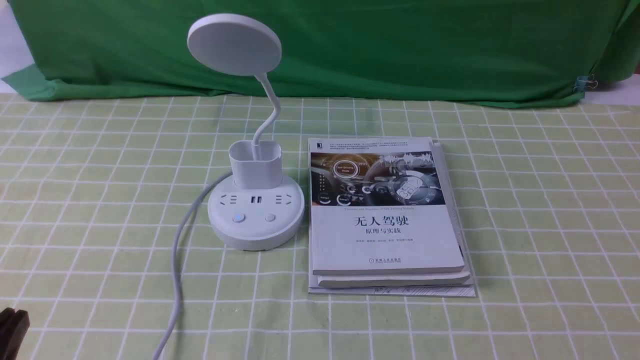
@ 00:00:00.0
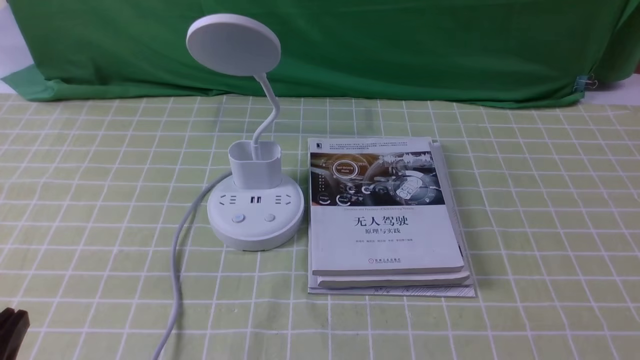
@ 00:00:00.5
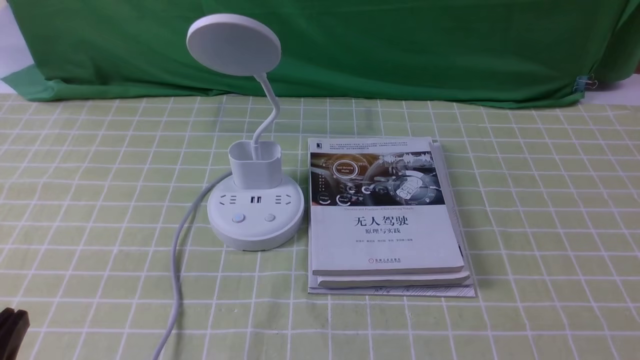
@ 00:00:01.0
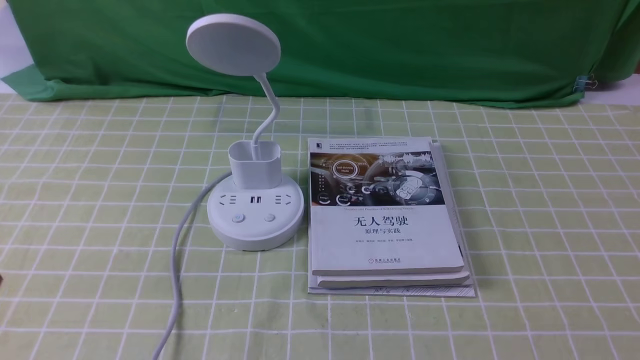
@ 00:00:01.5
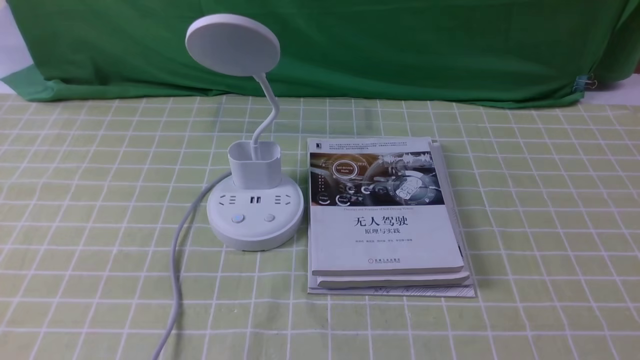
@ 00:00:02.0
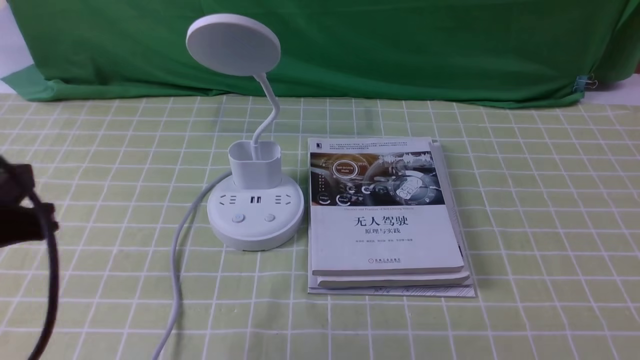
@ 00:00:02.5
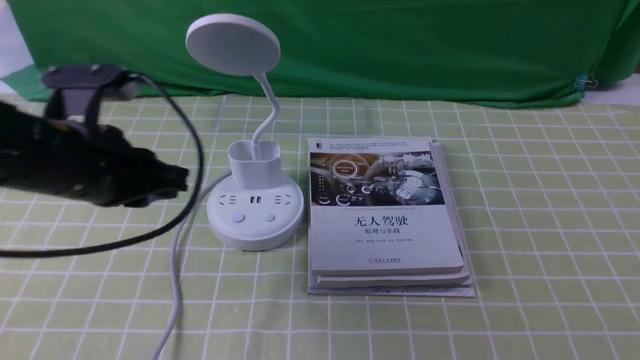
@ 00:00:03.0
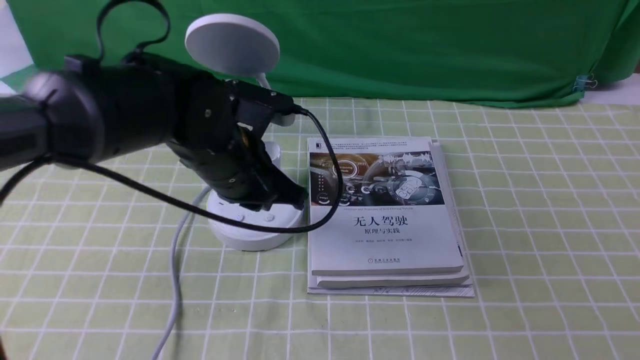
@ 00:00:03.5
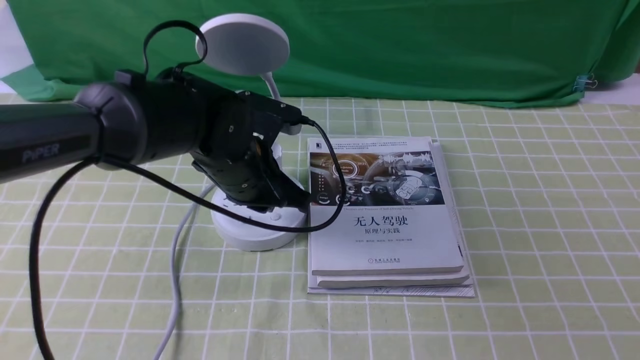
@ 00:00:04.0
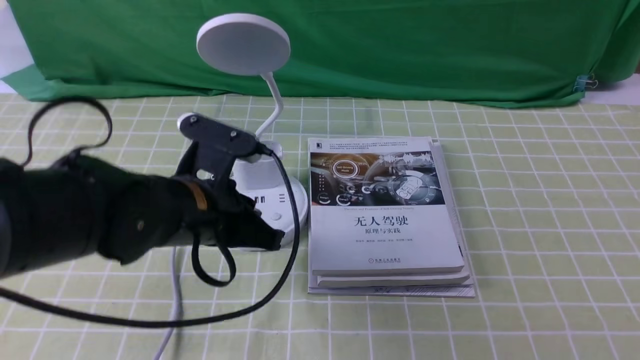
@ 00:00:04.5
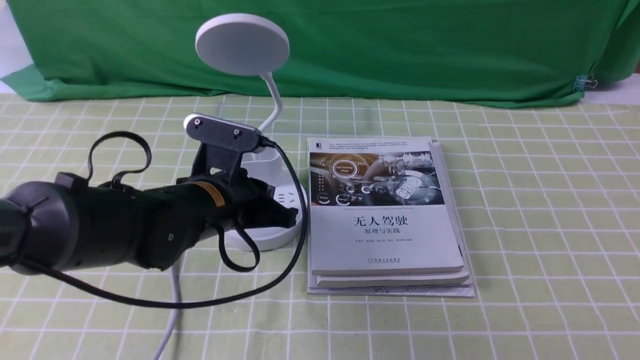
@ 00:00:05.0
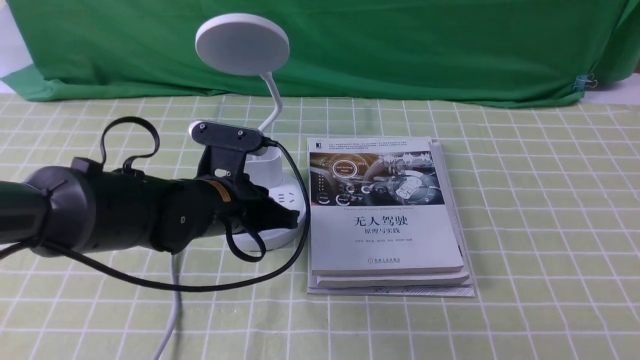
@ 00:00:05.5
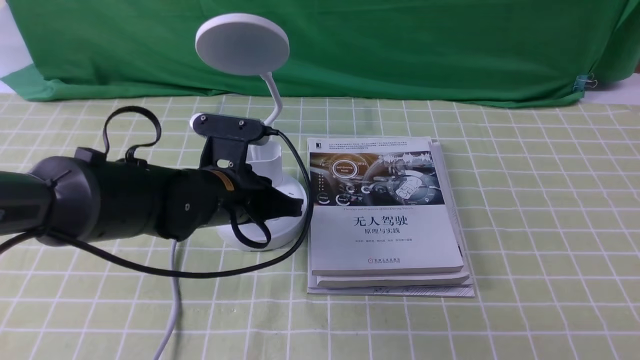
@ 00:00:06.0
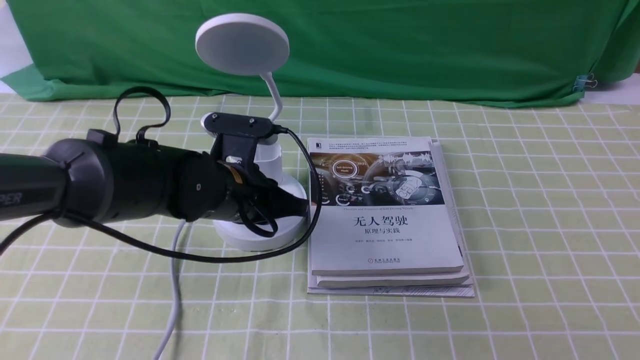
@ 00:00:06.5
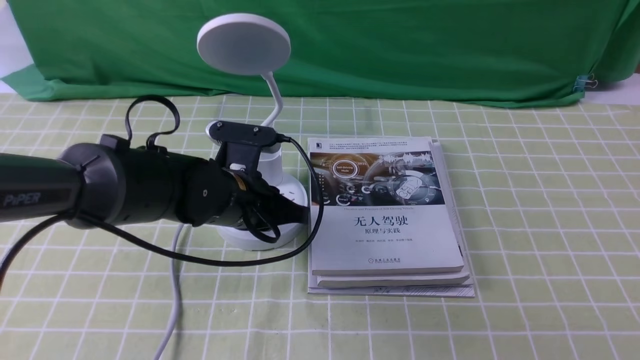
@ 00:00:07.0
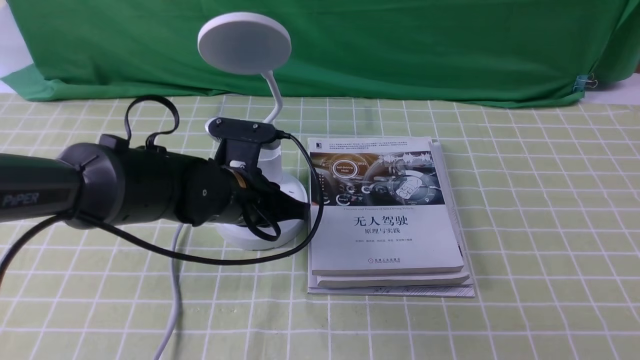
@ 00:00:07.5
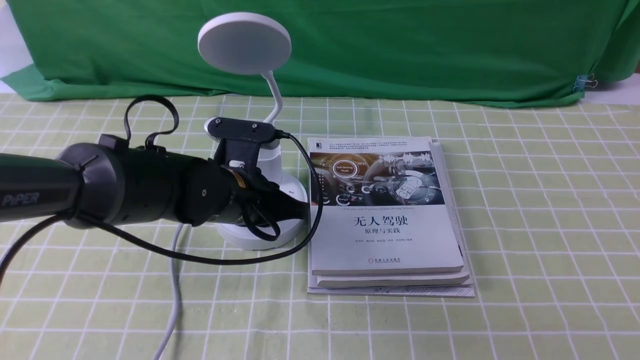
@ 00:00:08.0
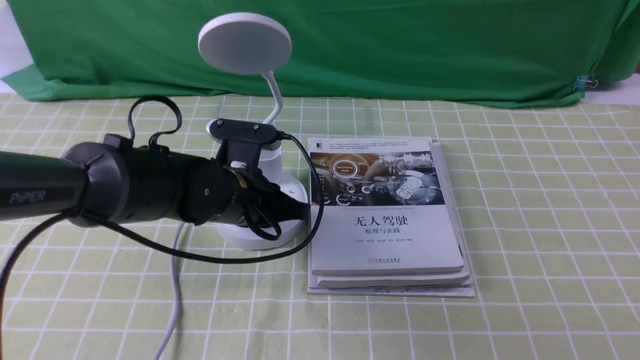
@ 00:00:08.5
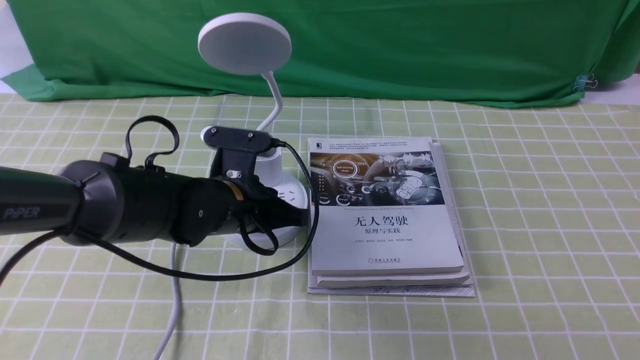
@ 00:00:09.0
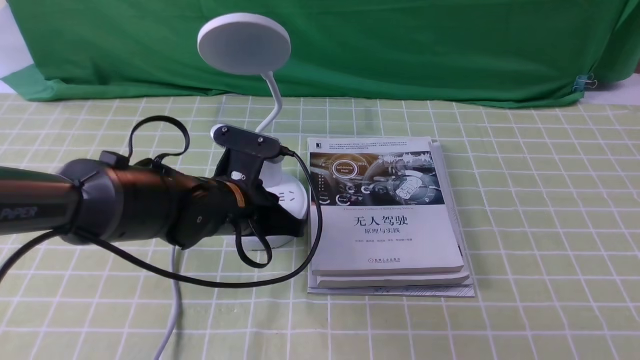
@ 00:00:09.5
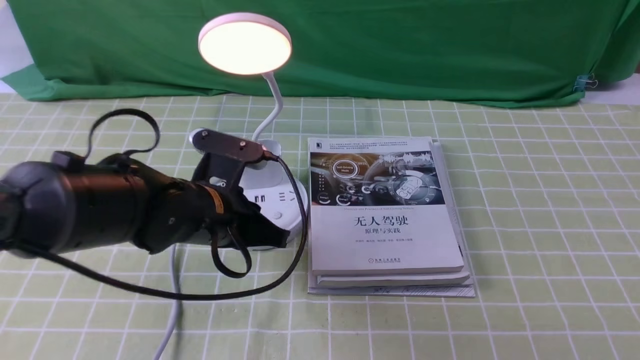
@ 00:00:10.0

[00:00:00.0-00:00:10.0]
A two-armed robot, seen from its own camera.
00:00:02.0 to 00:00:04.0: The left gripper travels forward and to the right by roughly 35 cm.
00:00:04.0 to 00:00:06.0: The left gripper shifts by roughly 5 cm.
00:00:06.0 to 00:00:10.0: The grippers stay close to where they were, moving slightly.

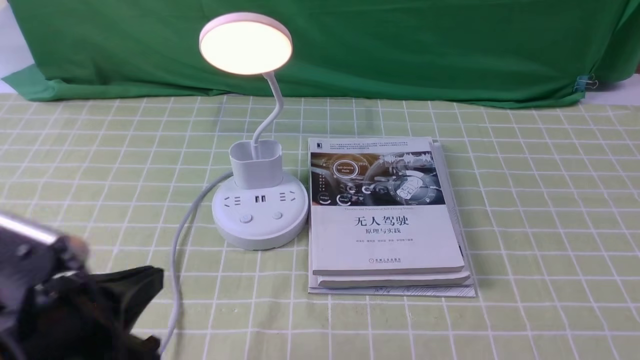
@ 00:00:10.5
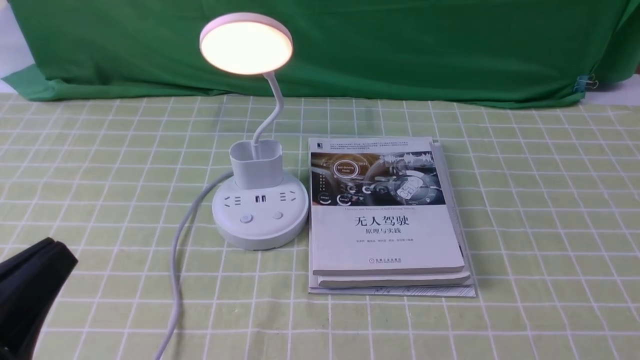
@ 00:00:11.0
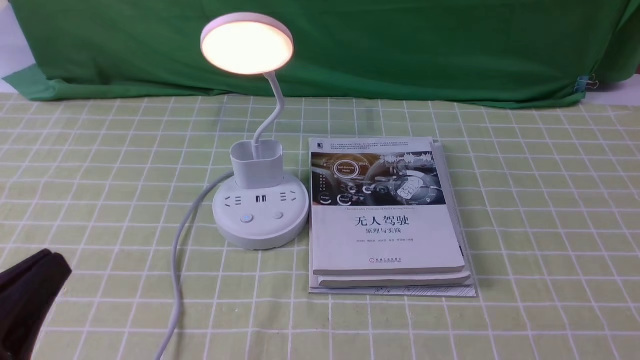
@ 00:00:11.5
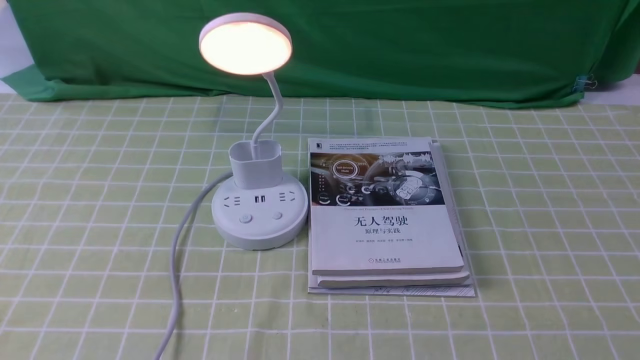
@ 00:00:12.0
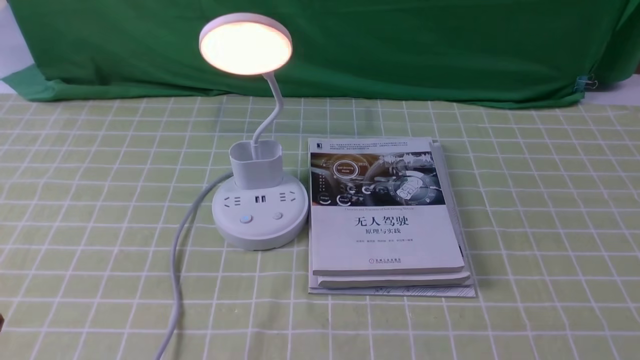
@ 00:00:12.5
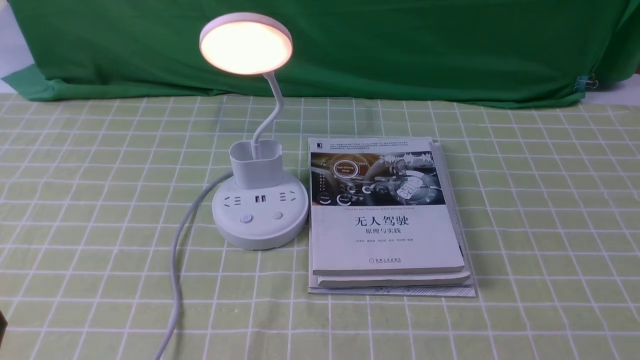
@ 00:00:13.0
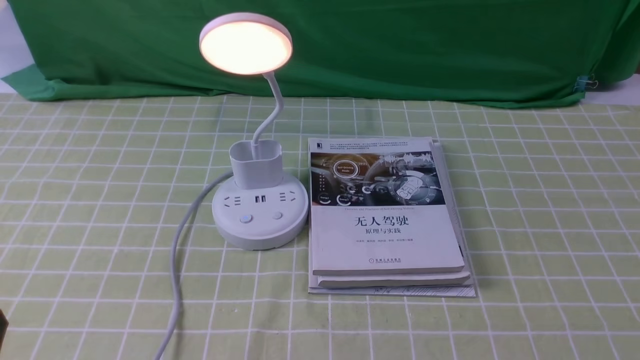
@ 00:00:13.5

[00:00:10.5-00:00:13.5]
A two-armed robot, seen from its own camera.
00:00:10.5 to 00:00:12.0: The left gripper moves backward and to the left, roughly 15 cm.
